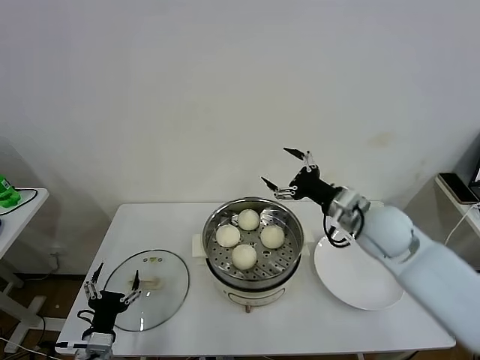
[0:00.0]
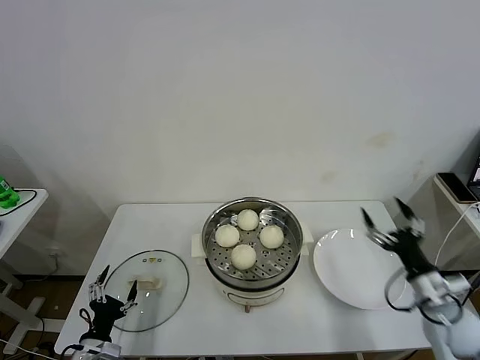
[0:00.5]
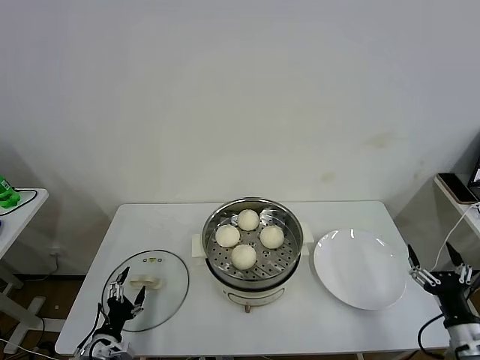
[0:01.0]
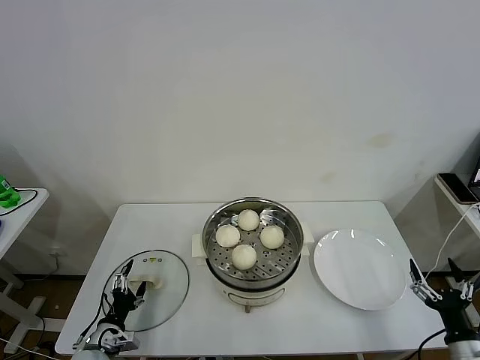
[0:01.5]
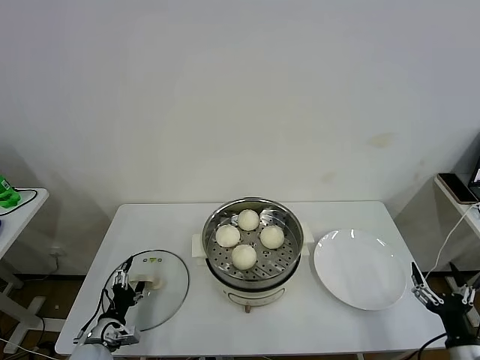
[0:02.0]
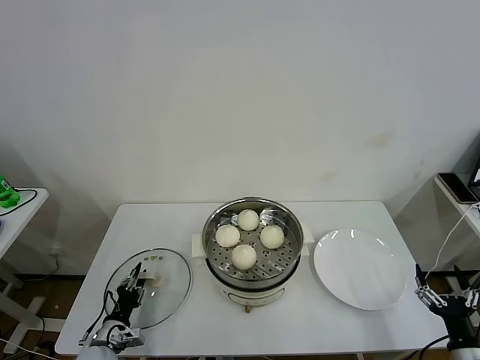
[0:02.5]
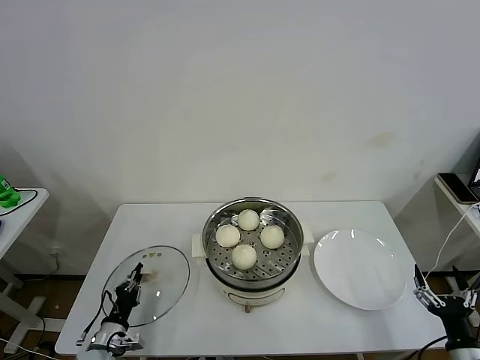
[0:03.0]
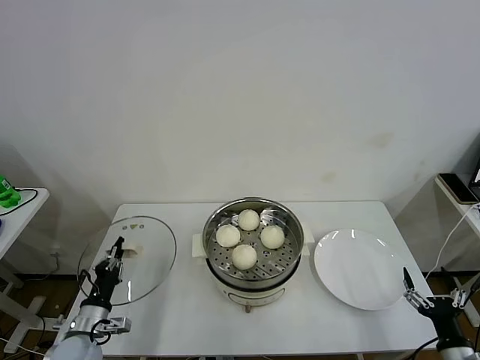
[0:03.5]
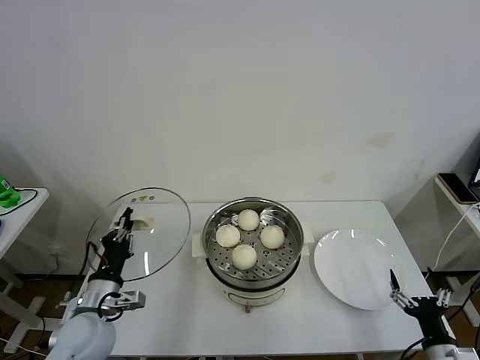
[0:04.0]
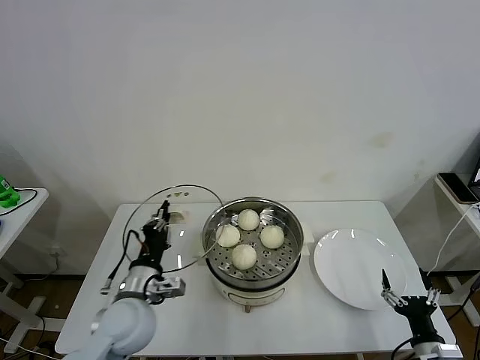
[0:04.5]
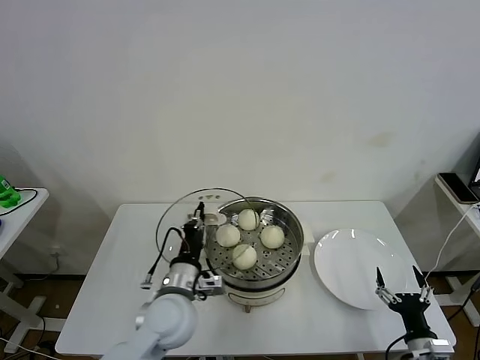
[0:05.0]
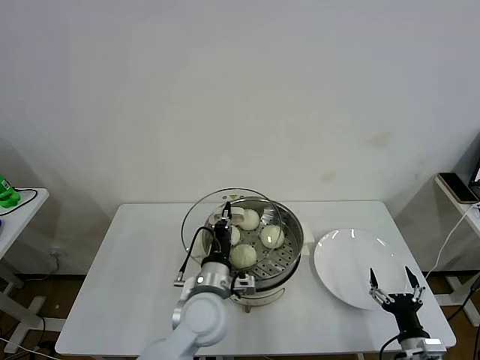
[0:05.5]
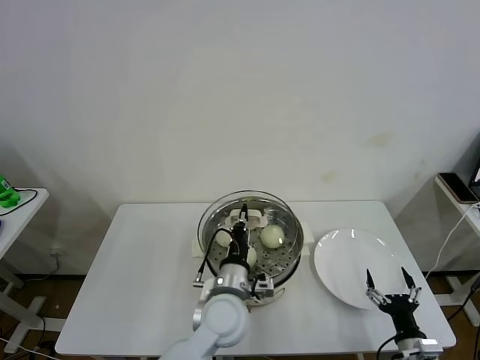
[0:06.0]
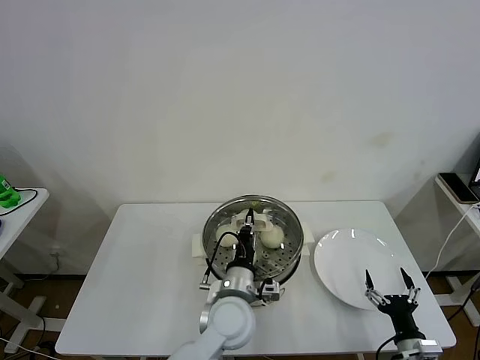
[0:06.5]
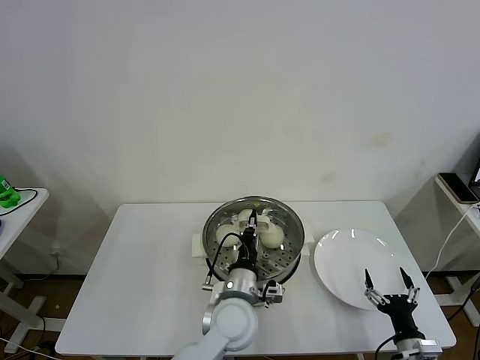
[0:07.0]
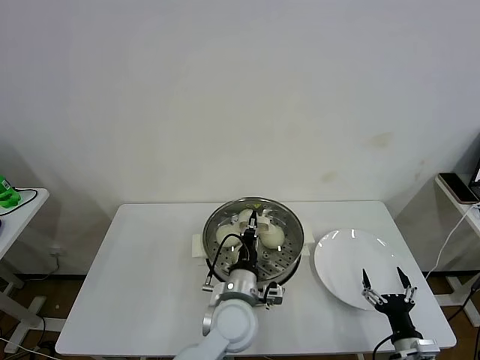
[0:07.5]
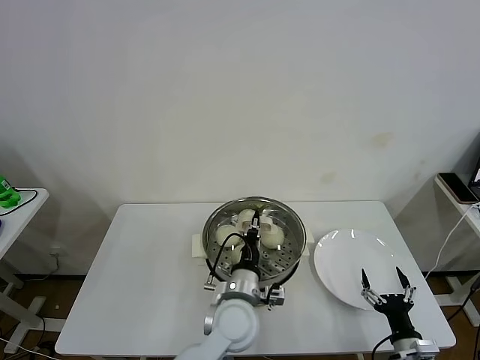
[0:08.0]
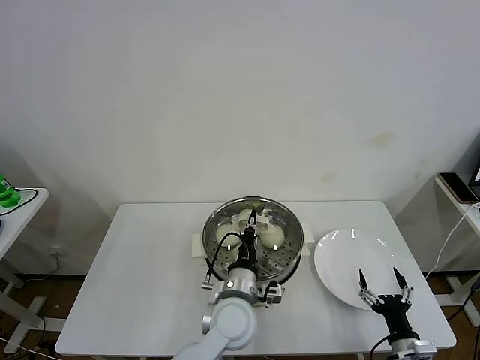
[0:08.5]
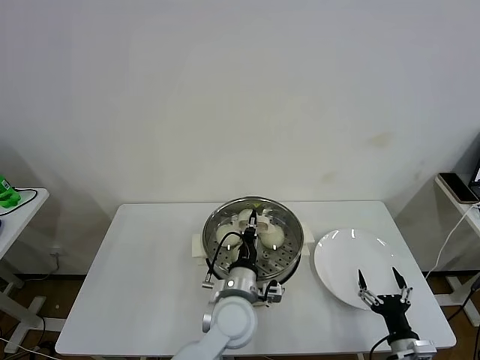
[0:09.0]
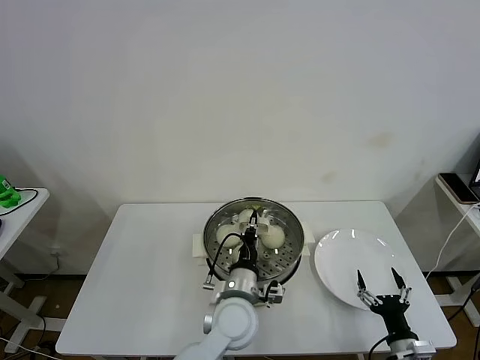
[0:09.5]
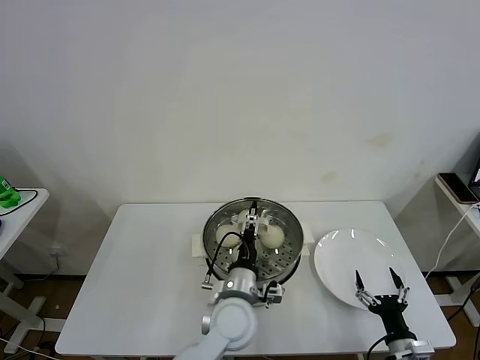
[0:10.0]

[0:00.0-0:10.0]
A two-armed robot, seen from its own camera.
Task of the whole recording: take steamed baozi put them in steamer then cover it.
Step, 0:00.0 to 0:02.5: Grasp the pot lid with left gripper.
Step, 0:03.0 to 0:09.5: Place the pot lid on the table with left gripper.
0:00.0 to 0:02.0: The left gripper moves downward and forward, some 10 cm; the right gripper moves backward, downward and to the right, about 35 cm.
0:02.0 to 0:04.0: The left gripper shifts approximately 15 cm upward, and closes up.
0:04.0 to 0:06.0: The left gripper is displaced to the right by about 25 cm, while the right gripper ends up approximately 5 cm from where it was.
0:06.0 to 0:08.0: The grippers stay close to where they were, moving slightly.
0:08.0 to 0:10.0: The left gripper opens its fingers.

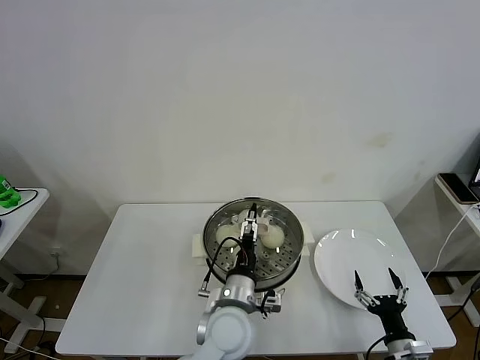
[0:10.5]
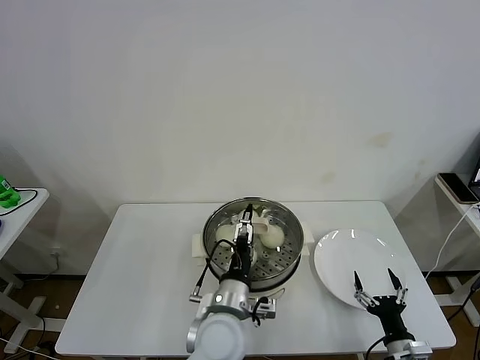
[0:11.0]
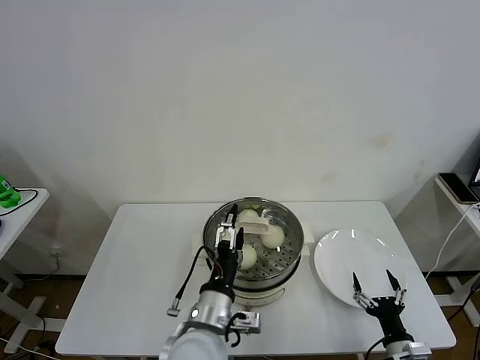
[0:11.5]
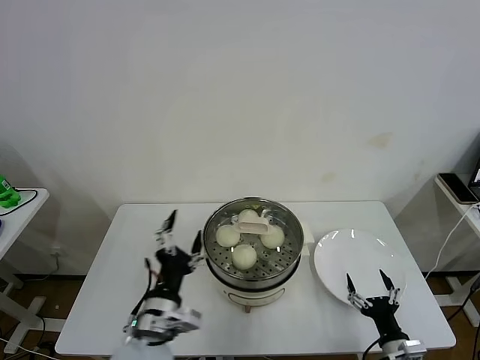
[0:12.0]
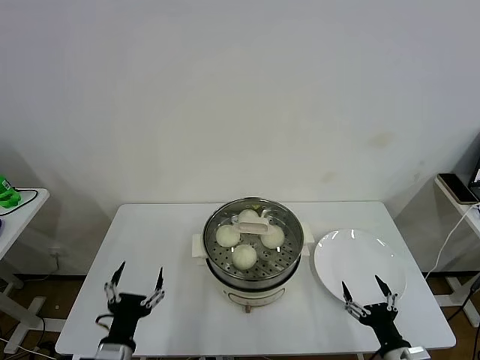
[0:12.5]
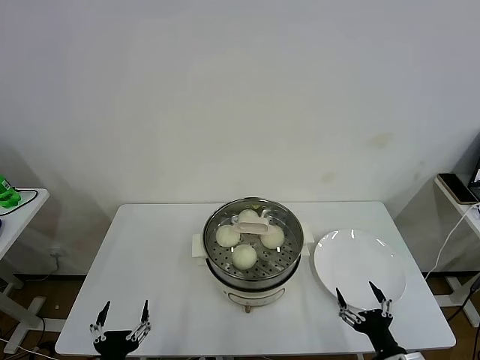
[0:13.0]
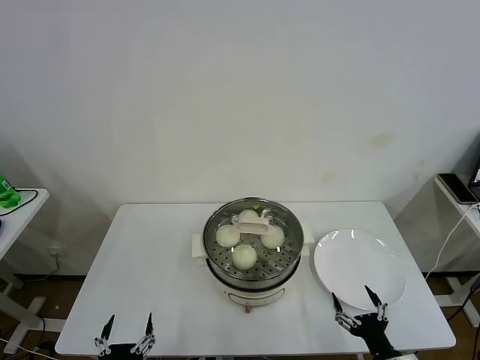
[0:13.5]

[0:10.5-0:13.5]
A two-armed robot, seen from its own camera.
Task of the whole recording: take steamed baozi put them in steamer then cover it.
0:10.5 to 0:12.0: The left gripper goes about 15 cm to the left and backward.
0:12.0 to 0:13.5: The right gripper moves roughly 5 cm. Meanwhile the left gripper is displaced backward, downward and to the left by approximately 20 cm.
